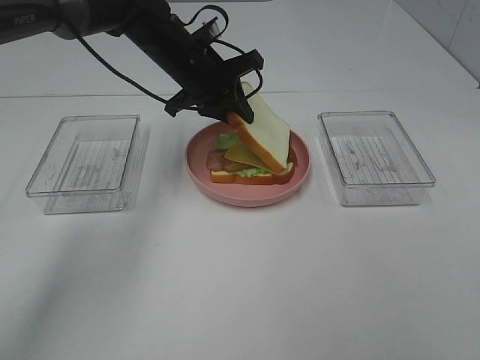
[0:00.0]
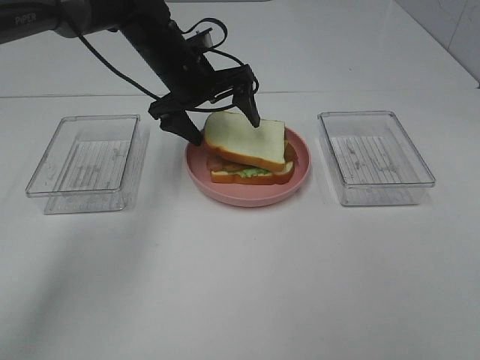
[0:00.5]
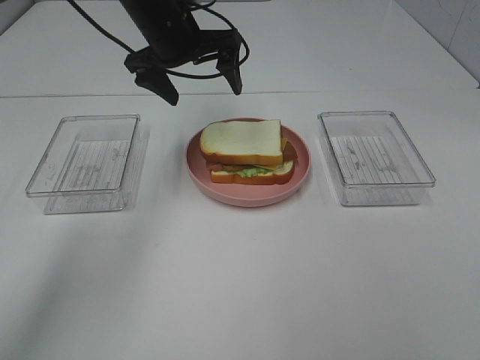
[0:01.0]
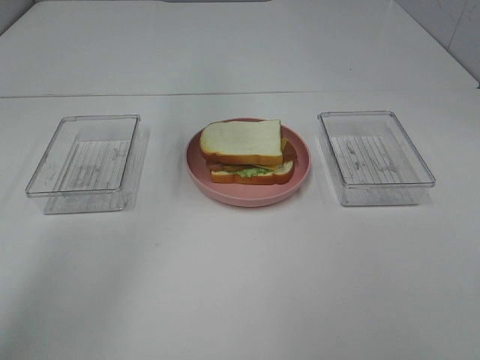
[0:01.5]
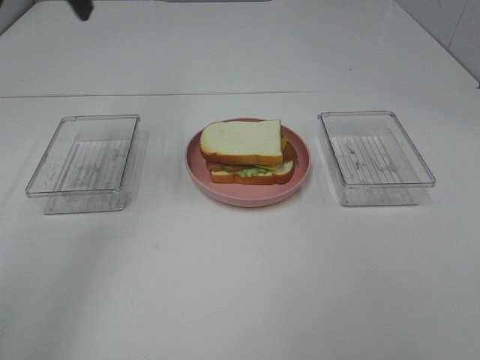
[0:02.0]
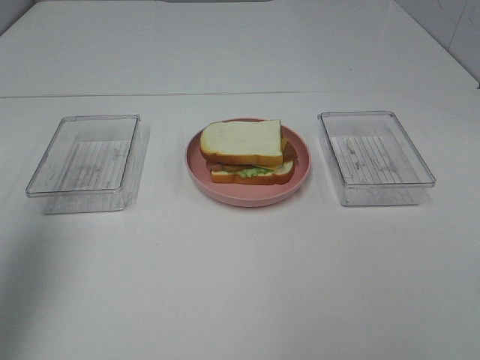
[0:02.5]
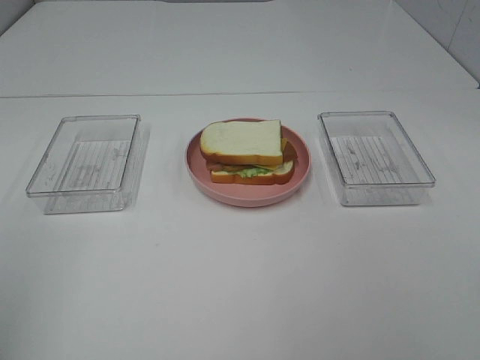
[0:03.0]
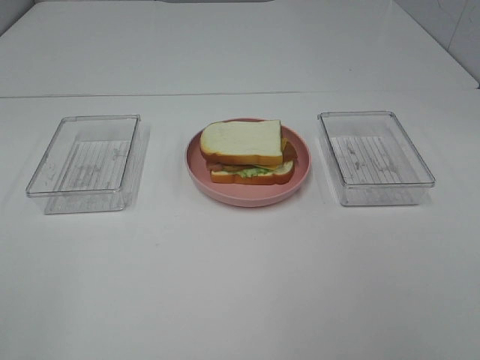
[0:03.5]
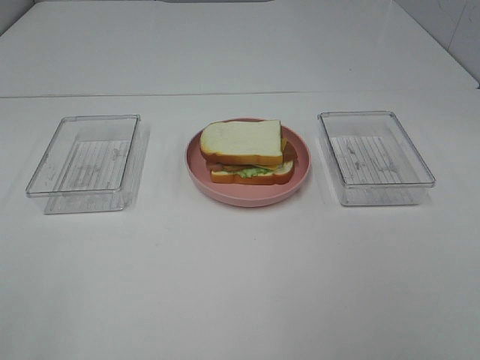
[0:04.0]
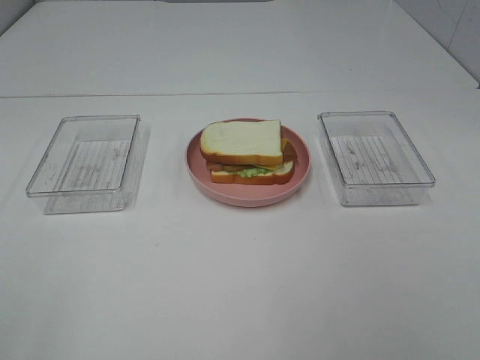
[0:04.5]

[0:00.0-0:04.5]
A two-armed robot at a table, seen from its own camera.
Task of the whole recording: Make sandwiches.
0:00.0 to 0:02.0: The left gripper shifts approximately 25 cm upward, to the left and backward, and opens.
0:02.0 to 0:04.5: The left gripper goes approximately 35 cm backward.
